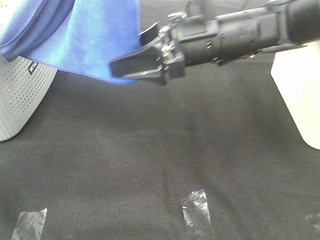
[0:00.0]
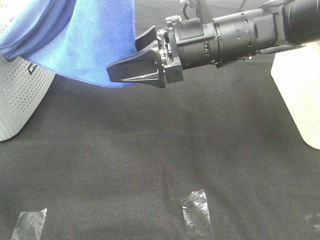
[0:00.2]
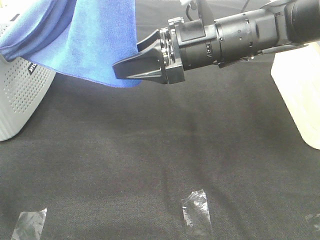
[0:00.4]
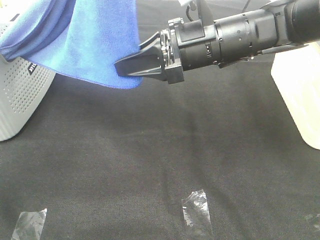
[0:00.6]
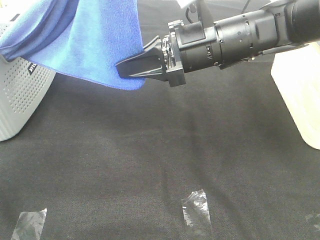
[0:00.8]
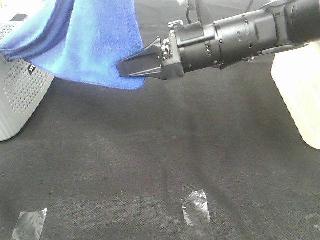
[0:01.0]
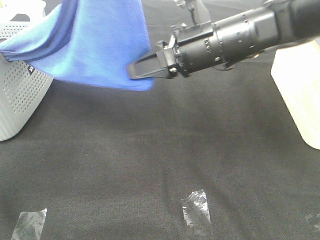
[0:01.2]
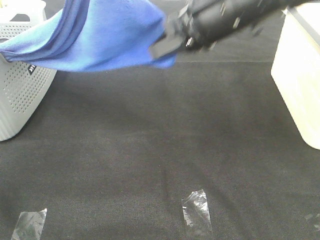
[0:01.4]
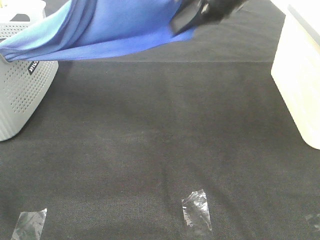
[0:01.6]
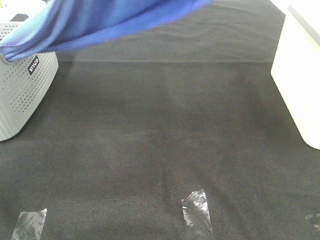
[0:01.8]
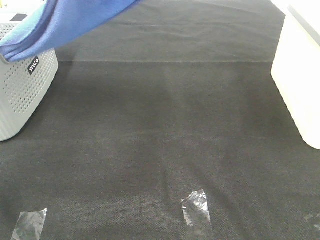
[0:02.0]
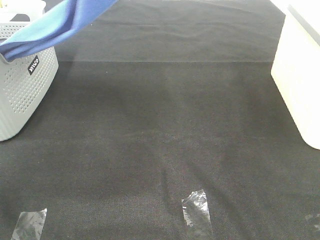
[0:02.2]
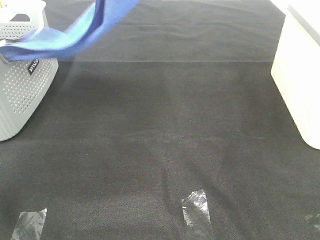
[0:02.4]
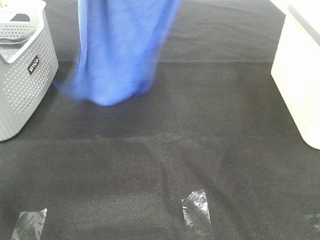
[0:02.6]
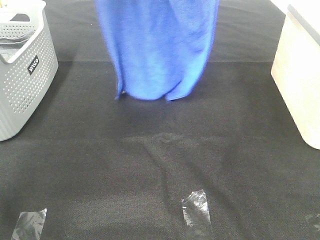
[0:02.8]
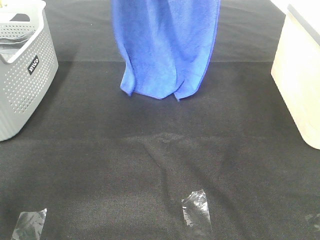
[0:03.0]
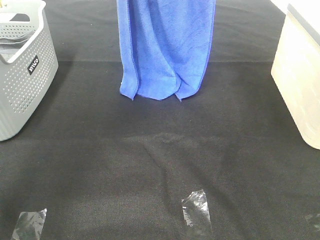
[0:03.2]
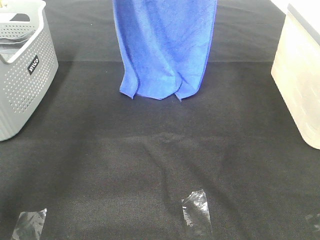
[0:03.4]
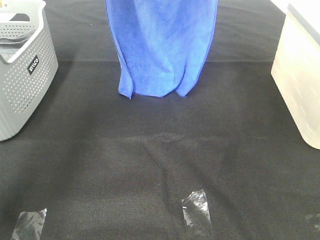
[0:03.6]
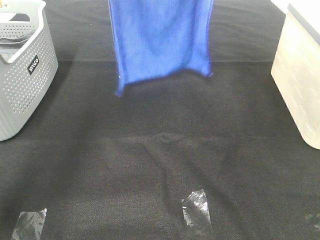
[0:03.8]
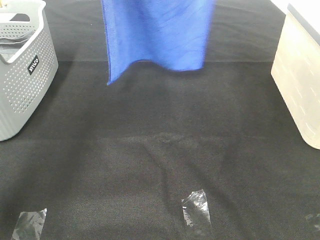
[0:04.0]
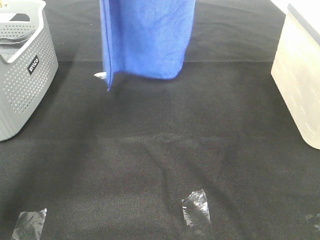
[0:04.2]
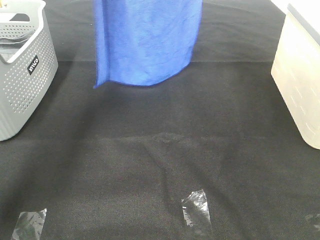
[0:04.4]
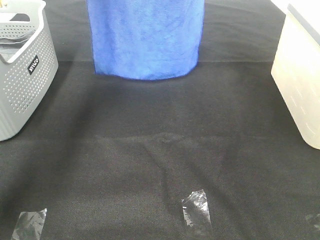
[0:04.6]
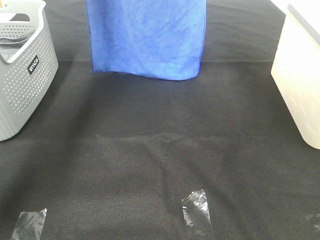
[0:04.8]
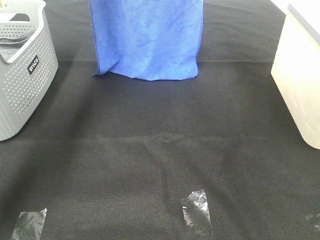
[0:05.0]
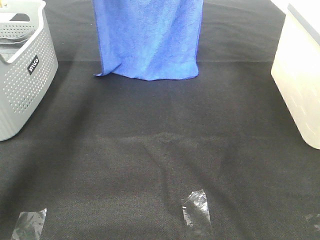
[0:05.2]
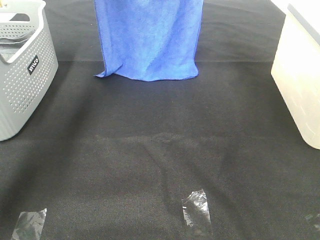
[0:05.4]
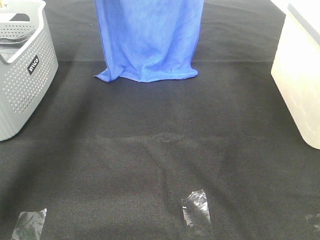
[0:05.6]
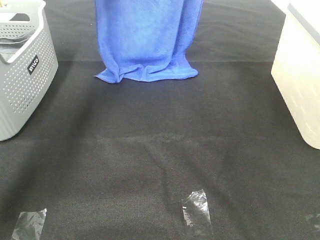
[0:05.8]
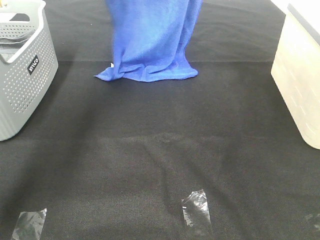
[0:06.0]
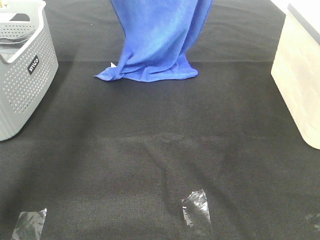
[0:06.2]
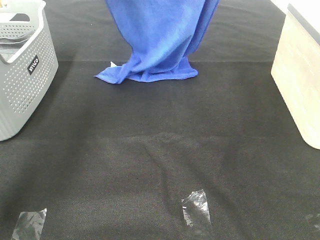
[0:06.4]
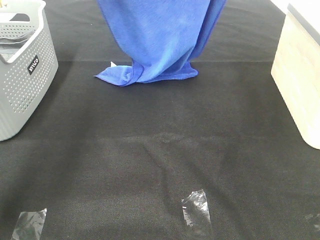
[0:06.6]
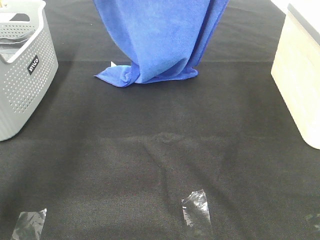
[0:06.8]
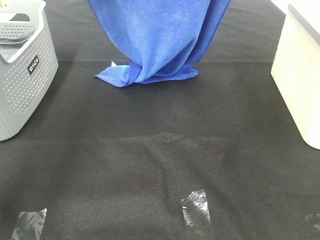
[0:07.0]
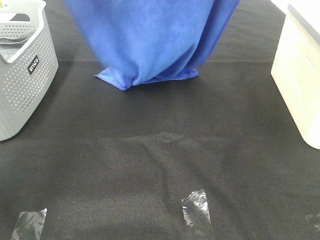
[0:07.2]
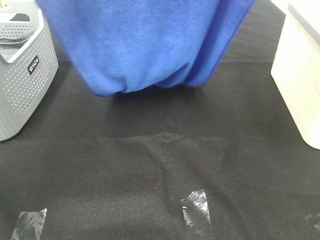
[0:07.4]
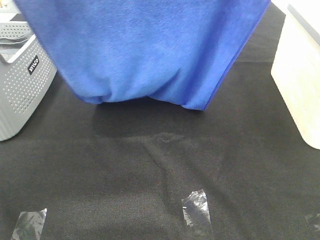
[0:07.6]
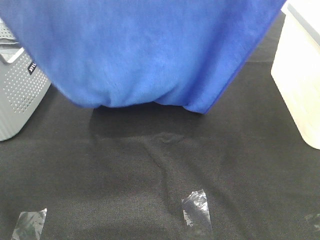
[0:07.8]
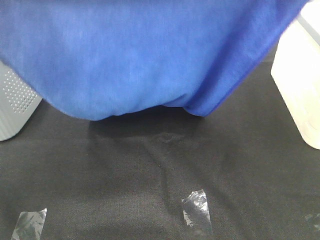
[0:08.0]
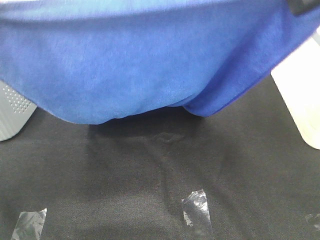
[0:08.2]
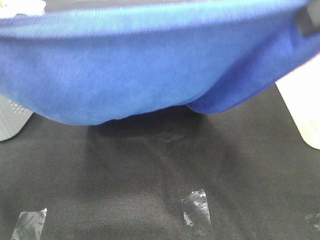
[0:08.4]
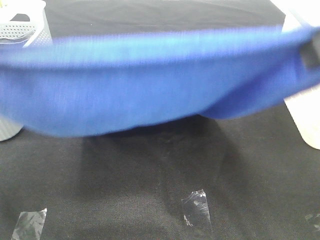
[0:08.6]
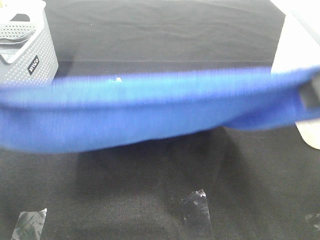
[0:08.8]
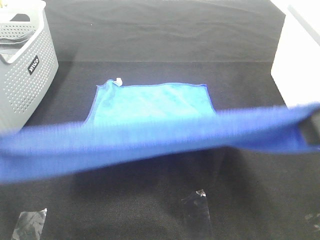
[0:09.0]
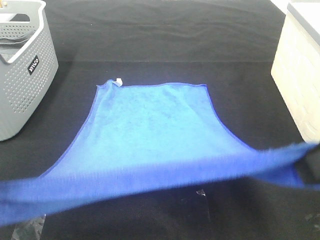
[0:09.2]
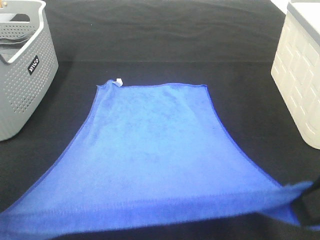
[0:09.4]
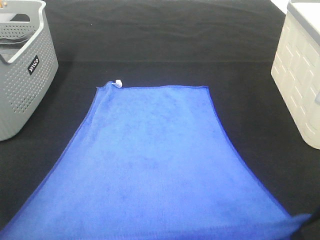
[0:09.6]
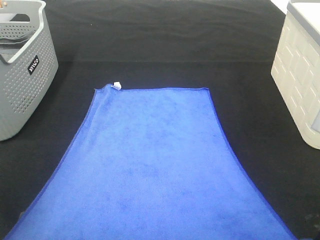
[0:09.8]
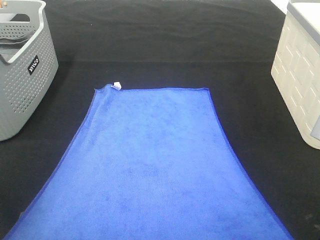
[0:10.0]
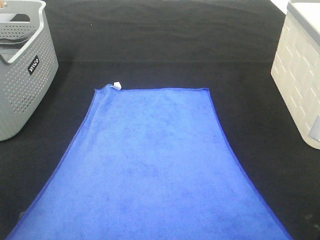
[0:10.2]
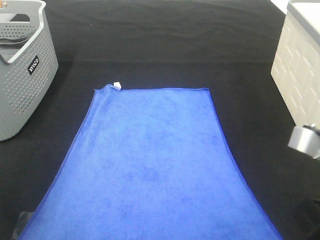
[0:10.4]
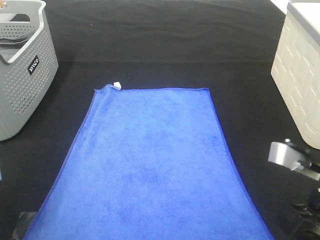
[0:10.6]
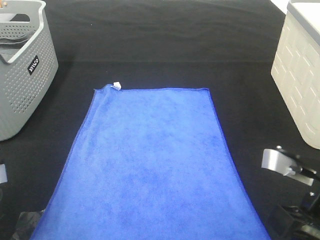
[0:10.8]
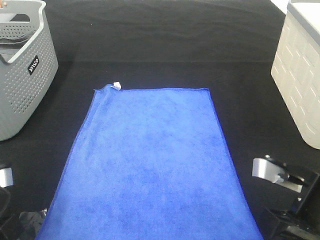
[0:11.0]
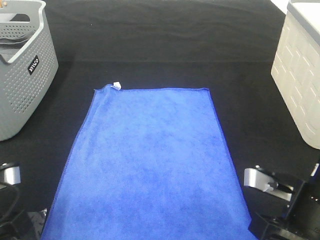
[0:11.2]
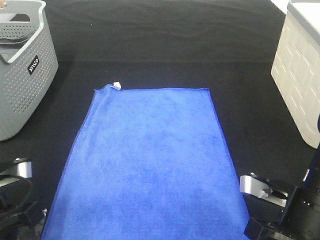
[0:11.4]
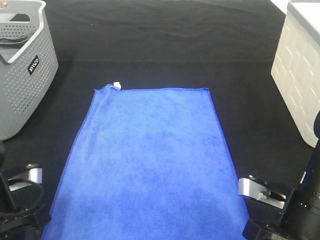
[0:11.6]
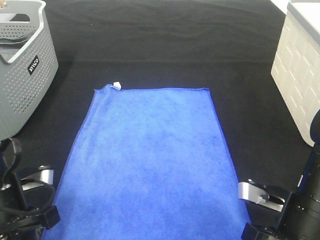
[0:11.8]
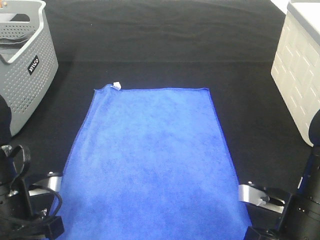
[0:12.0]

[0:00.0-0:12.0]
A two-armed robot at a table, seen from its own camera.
Task of the whole recording: Remove the towel and place it.
Step, 0:00.8 to 0:08.0: Left hand: spread the blue towel flat on the table.
Step, 0:00.8 to 0:08.0: Right hand: spread the blue towel flat on the table.
0:00.0 to 0:01.6: The right gripper shifts approximately 10 cm upward, and closes up.
0:01.6 to 0:03.0: The right gripper heads upward and forward, covering roughly 15 cm. Meanwhile the left gripper goes some 15 cm forward.
0:03.0 to 0:04.4: The left gripper heads forward, covering some 5 cm.
0:04.4 to 0:06.0: The left gripper travels downward by roughly 5 cm. Meanwhile the right gripper ends up roughly 5 cm from where it was.
0:06.0 to 0:07.6: Both grippers travel together backward, some 25 cm.
0:07.6 to 0:09.0: The right gripper travels backward and downward by about 15 cm. Meanwhile the left gripper travels downward and backward by about 20 cm.
0:09.0 to 0:10.4: Both grippers move downward, some 10 cm.
0:10.4 to 0:12.0: The left gripper goes roughly 10 cm downward and forward. The right gripper shifts about 10 cm downward.

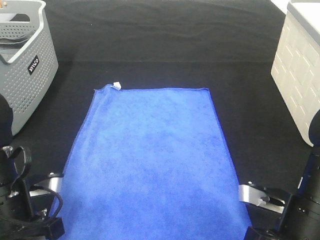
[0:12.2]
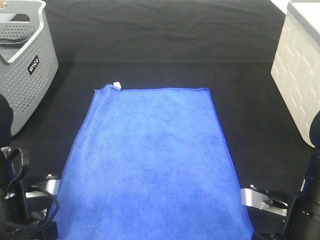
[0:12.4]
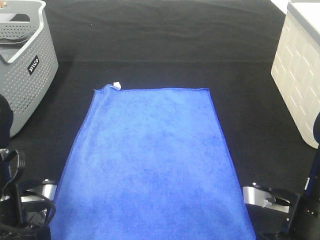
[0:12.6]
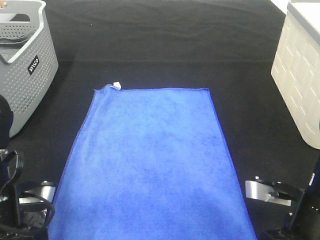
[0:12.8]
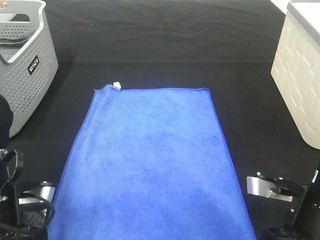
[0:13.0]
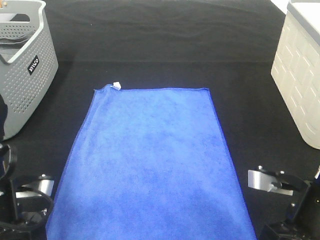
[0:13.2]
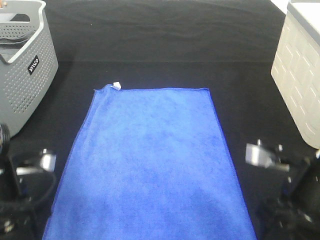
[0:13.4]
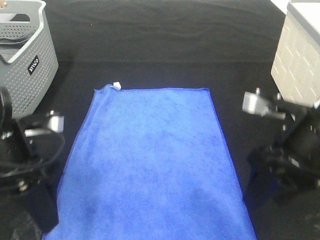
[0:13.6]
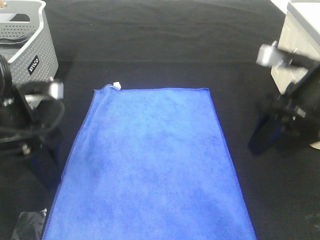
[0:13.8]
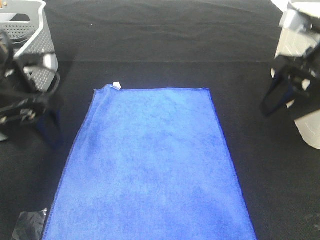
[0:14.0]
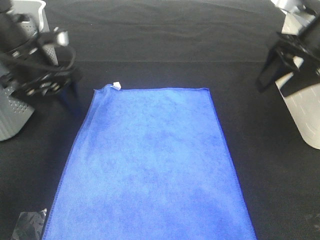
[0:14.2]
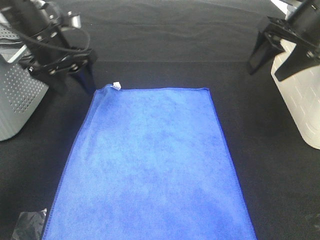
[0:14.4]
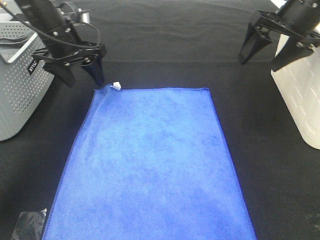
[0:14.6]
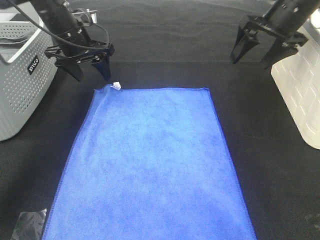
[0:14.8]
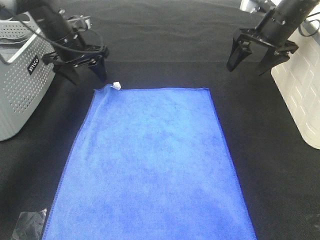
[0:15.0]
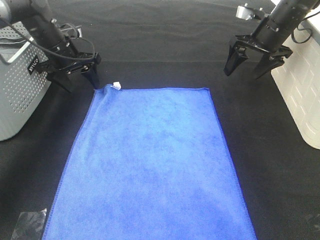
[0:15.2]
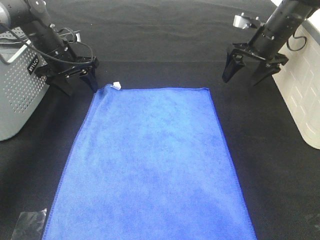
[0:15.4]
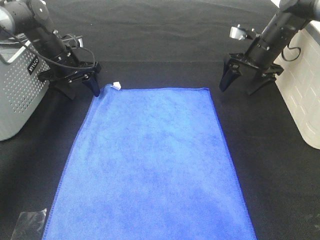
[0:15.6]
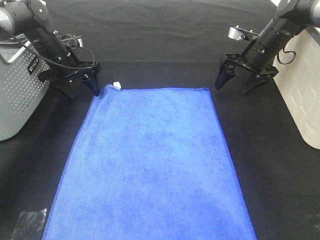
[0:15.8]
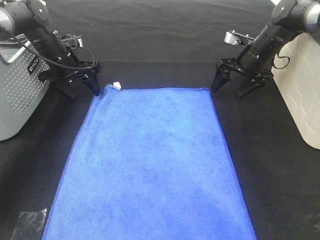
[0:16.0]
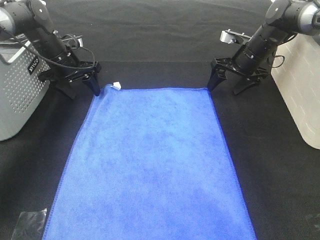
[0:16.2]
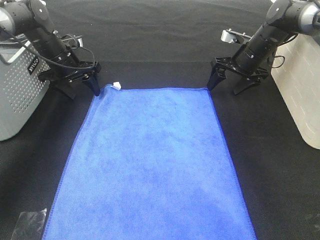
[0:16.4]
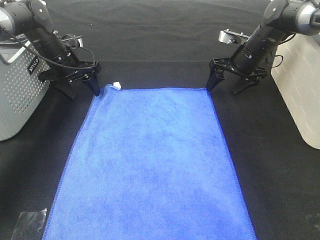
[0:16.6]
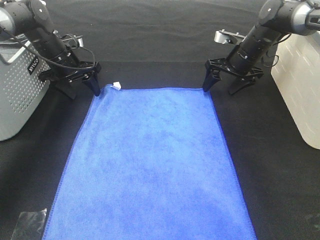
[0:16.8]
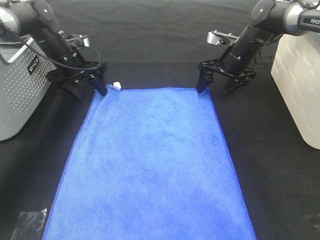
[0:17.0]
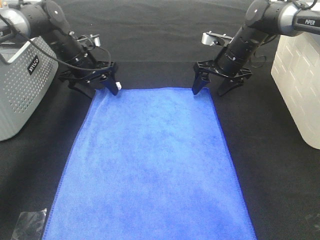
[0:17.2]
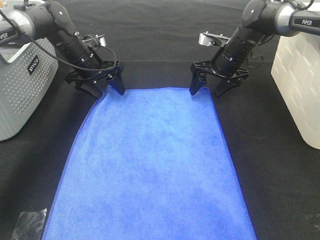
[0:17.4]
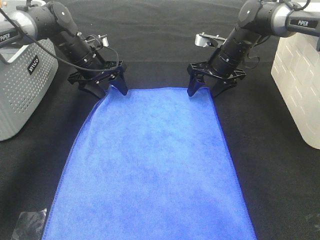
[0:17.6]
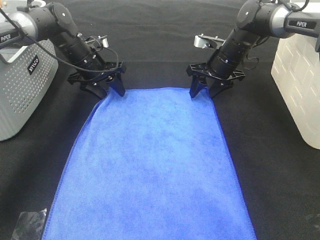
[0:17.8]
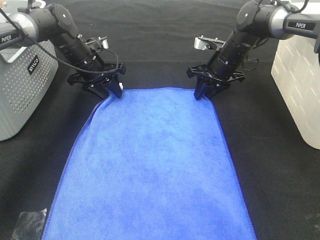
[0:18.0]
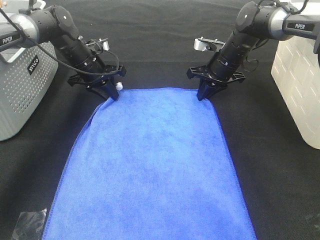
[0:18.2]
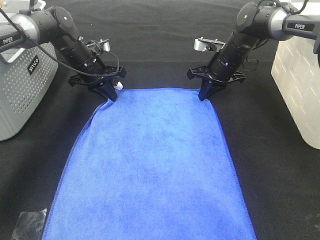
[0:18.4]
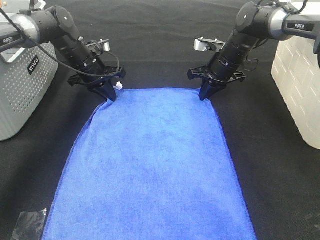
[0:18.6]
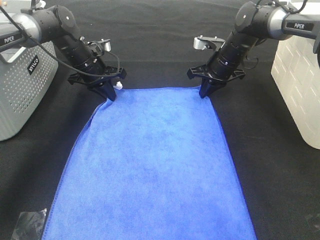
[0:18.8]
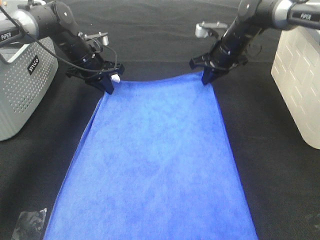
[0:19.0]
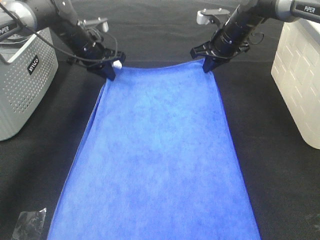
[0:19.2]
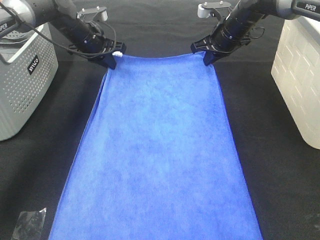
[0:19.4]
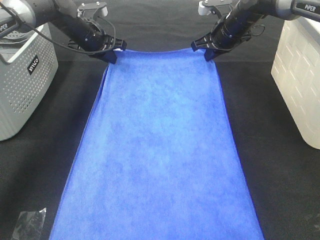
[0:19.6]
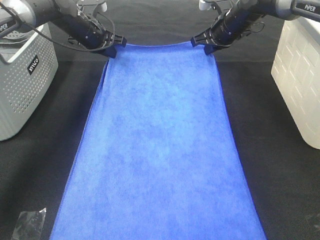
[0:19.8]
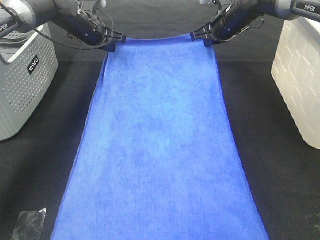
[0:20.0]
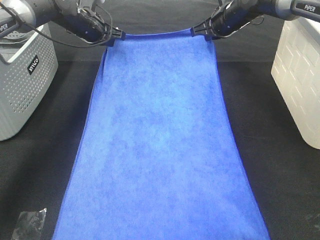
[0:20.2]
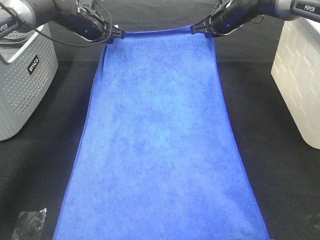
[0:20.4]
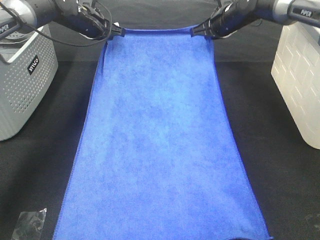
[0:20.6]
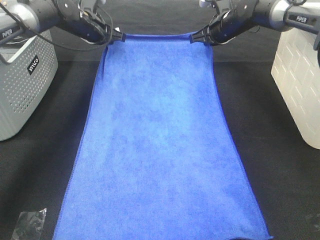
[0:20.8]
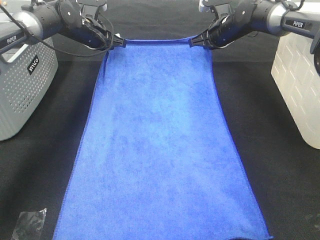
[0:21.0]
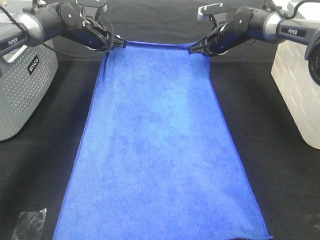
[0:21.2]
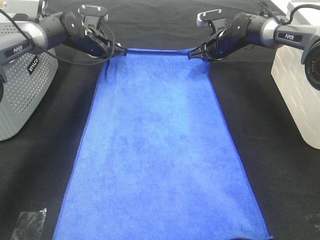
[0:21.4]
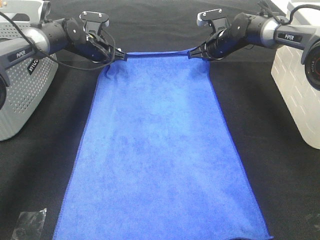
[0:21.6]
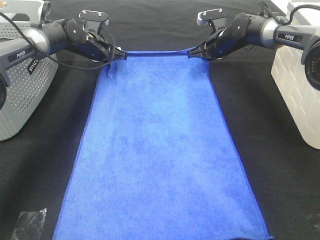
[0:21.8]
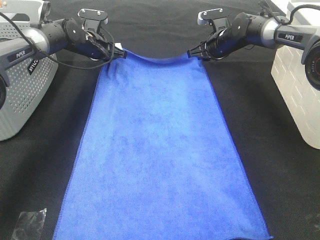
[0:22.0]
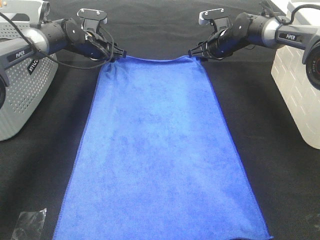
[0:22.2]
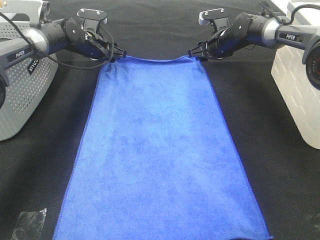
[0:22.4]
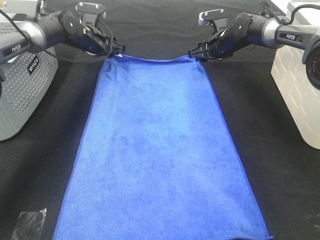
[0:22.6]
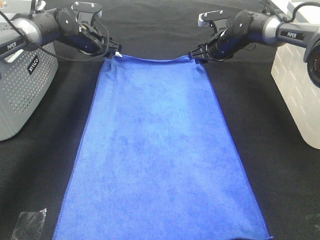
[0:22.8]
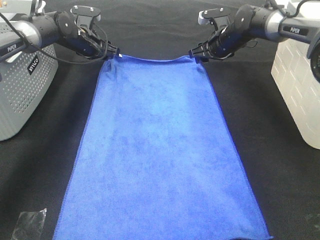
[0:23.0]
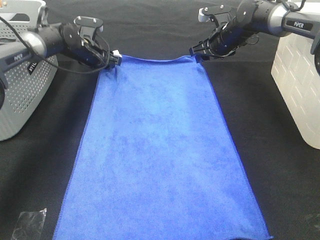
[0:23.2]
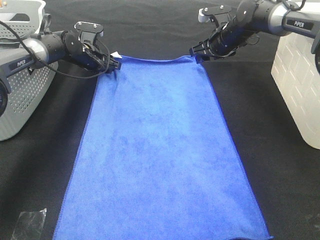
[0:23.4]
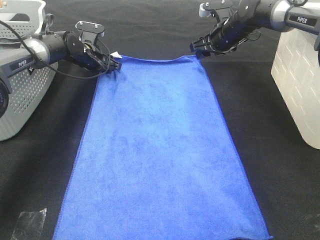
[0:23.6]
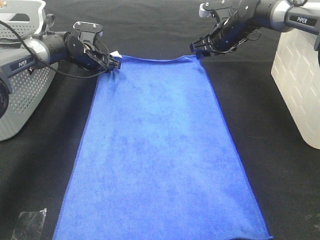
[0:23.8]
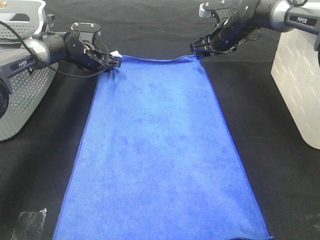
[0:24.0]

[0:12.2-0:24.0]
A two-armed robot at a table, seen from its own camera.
Task of the whole recording: Remove the towel and place it.
Step, 0:12.2 to 0:16.0: Left hand:adjust the blue towel.
Step, 0:12.2 to 0:16.0: Right hand:adjust the blue towel.
0:12.2 to 0:13.6: The right gripper shifts roughly 10 cm upward and forward, and opens, while the left gripper shifts approximately 5 cm upward, and opens.
0:13.6 to 0:15.2: The two grippers go approximately 30 cm forward.
0:15.2 to 0:16.6: The right gripper is displaced downward by about 5 cm.
0:16.6 to 0:18.2: The left gripper heads to the right, covering some 5 cm, and closes its fingers; the right gripper is displaced to the left by about 5 cm, and closes up.
0:18.2 to 0:19.6: Both grippers move upward, approximately 5 cm.
0:19.6 to 0:21.0: The grippers make only small movements.
0:21.0 to 0:22.6: The right gripper opens its fingers. Meanwhile the left gripper opens.
0:22.6 to 0:24.0: The left gripper moves downward, roughly 5 cm.
